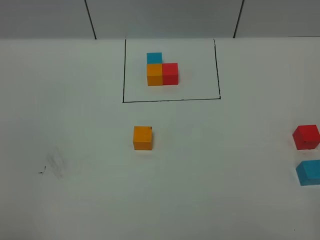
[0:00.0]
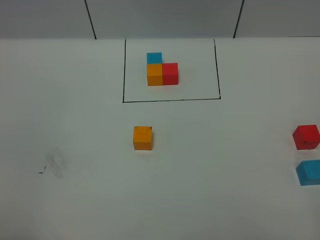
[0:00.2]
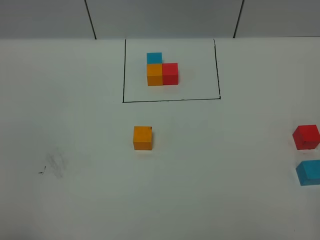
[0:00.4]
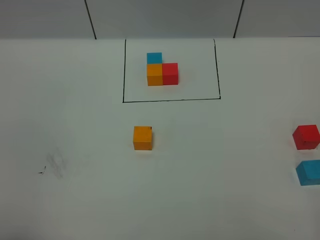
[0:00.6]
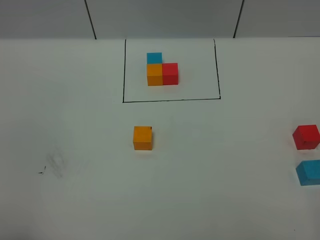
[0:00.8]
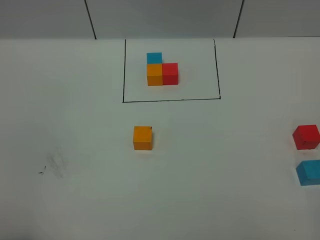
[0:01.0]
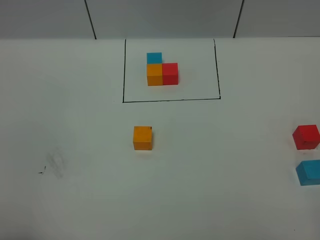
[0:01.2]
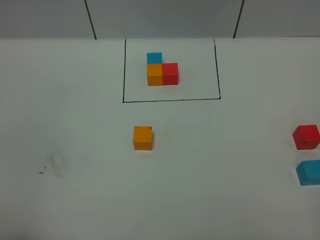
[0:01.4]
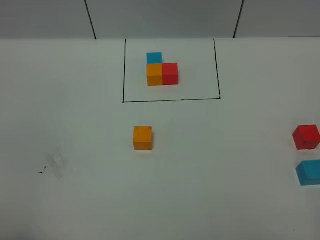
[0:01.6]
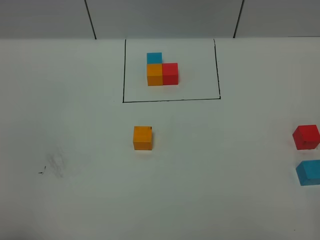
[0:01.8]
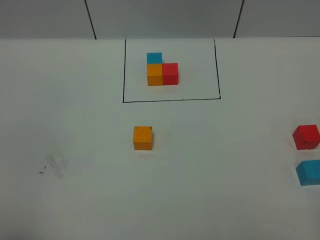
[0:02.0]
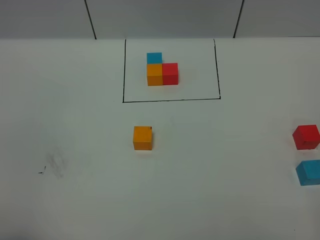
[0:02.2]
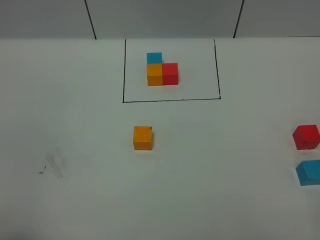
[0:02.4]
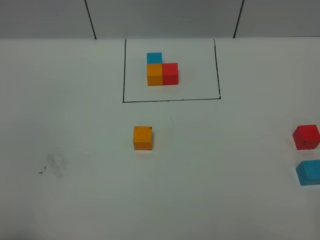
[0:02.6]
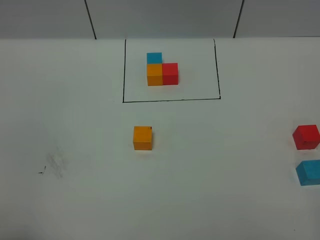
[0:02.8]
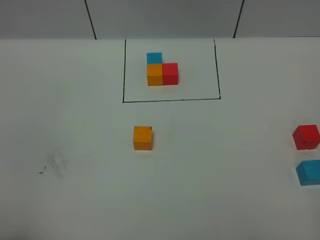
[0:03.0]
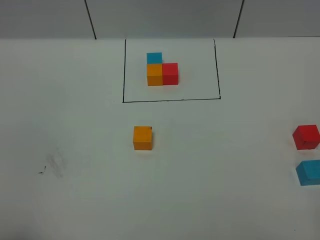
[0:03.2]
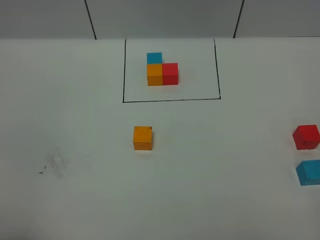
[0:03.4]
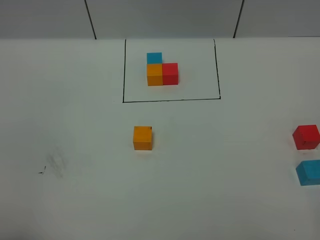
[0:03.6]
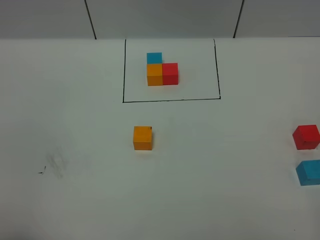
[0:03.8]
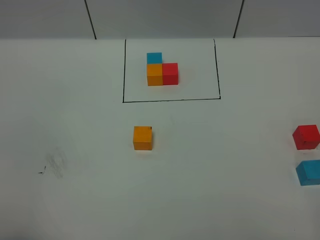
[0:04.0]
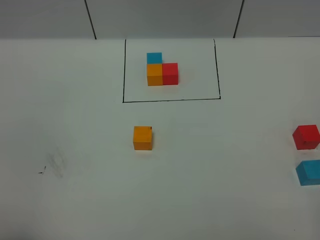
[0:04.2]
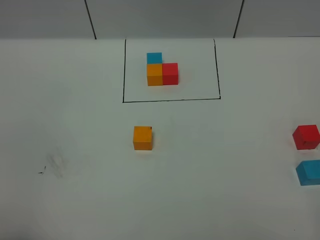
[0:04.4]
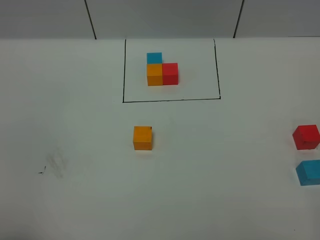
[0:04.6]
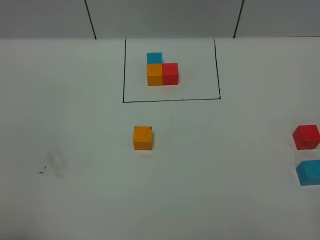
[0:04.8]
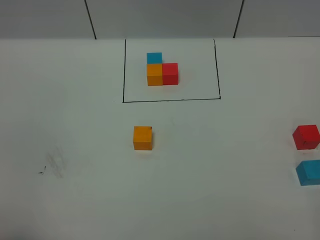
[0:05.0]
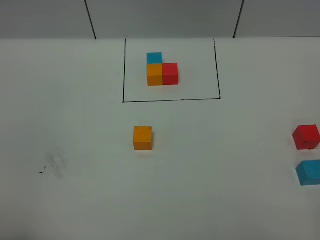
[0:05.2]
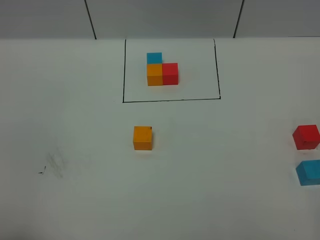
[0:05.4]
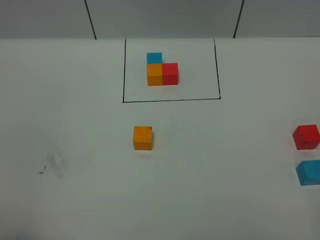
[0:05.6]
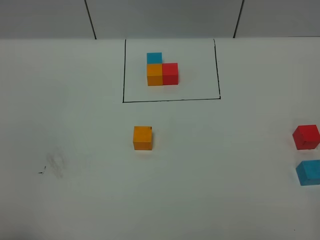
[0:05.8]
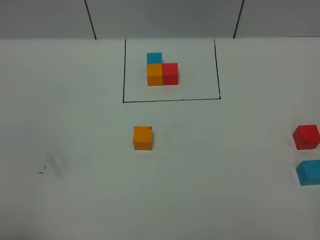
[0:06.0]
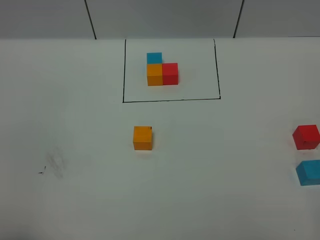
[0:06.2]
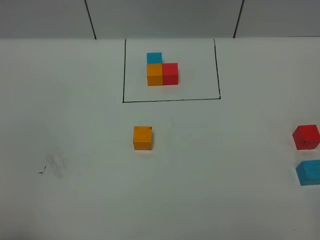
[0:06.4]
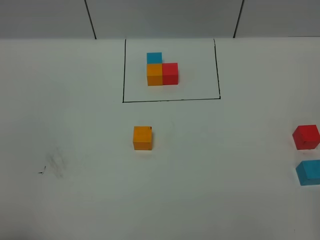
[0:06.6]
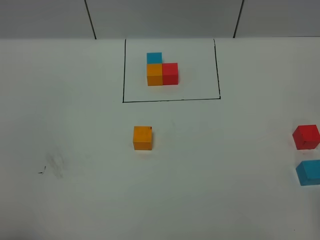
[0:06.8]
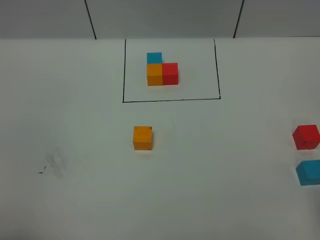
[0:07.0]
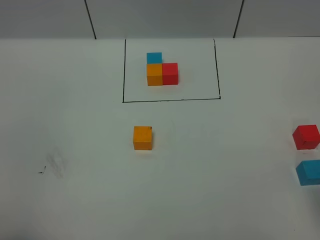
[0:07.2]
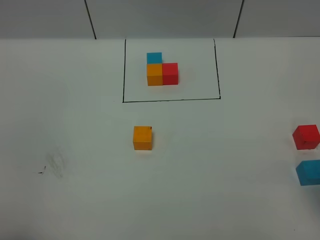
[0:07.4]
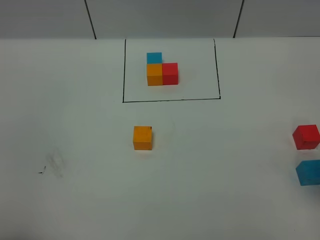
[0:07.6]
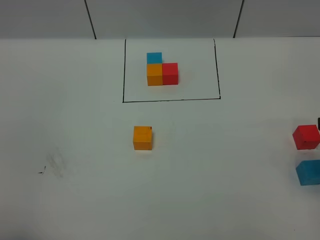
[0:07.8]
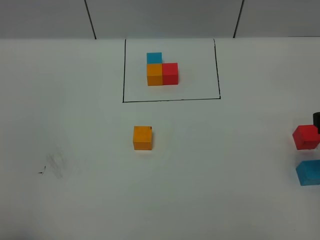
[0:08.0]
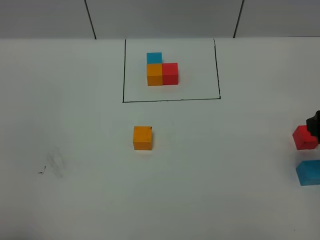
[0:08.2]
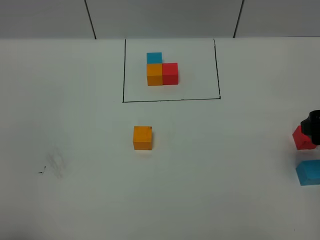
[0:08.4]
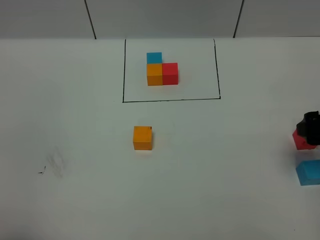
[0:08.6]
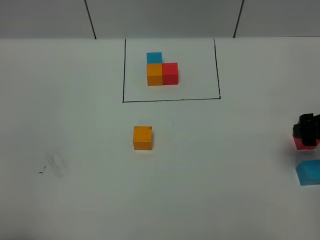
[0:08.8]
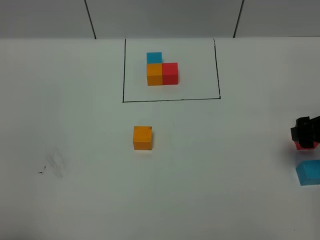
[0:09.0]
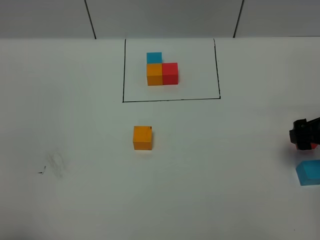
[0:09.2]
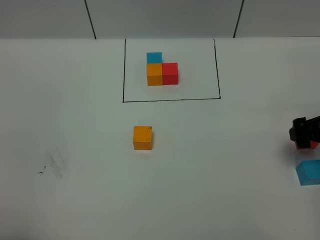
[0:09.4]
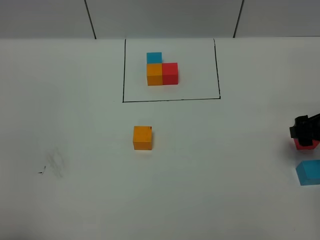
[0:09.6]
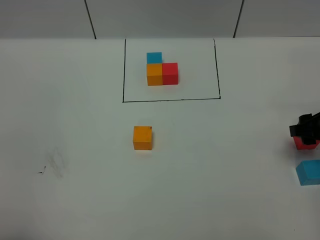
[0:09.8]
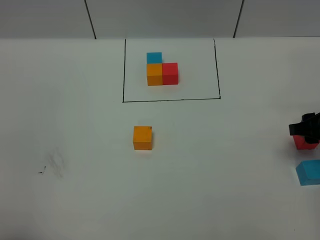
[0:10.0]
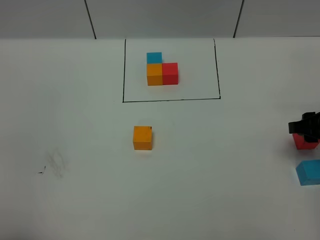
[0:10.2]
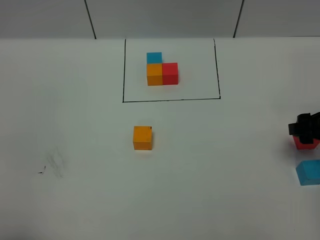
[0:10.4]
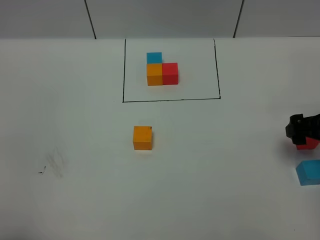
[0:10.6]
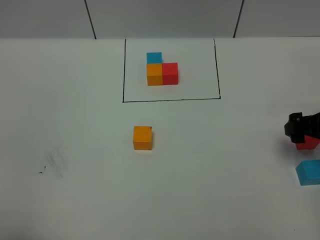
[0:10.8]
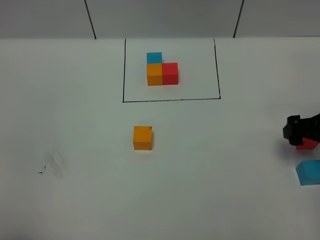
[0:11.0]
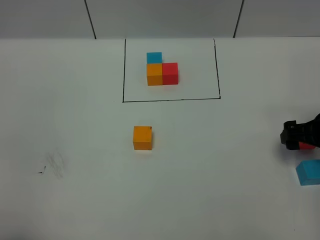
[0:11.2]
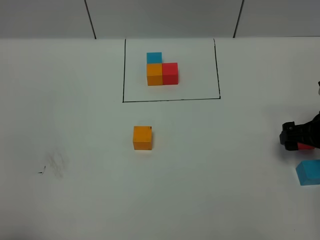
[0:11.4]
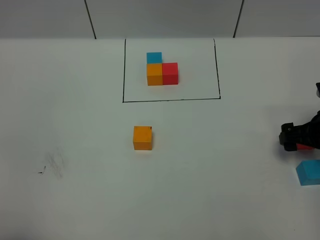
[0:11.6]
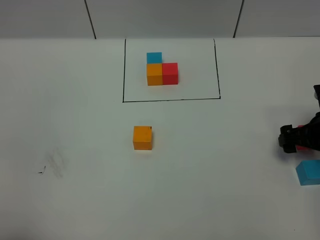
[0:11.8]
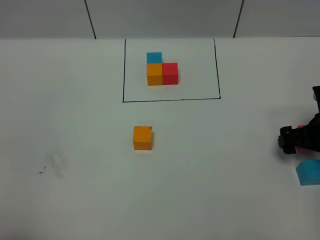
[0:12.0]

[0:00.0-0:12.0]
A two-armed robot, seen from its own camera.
Task of the whole recording: According to the building block template in front, assemble the scattered blocks together.
0:01.6 to 0:06.0: Neither gripper changes place.
0:07.6 to 0:09.0: The right gripper travels downward and forward by approximately 15 cm.
0:09.0 to 0:10.4: Neither gripper changes place.
0:10.4 to 0:12.0: The right gripper heads downward, covering some 5 cm.

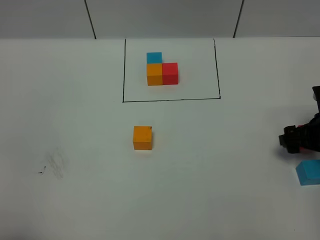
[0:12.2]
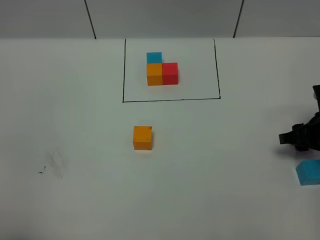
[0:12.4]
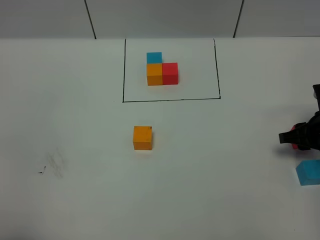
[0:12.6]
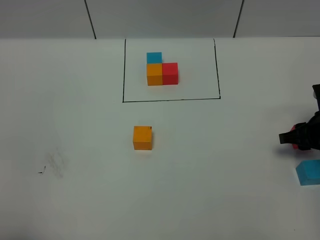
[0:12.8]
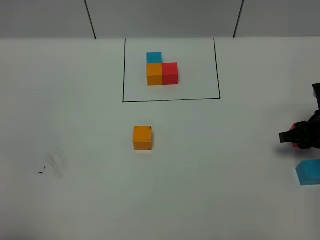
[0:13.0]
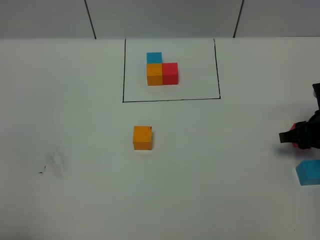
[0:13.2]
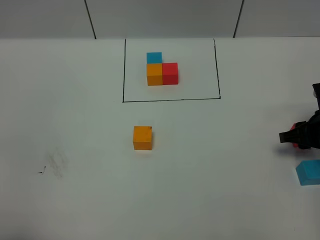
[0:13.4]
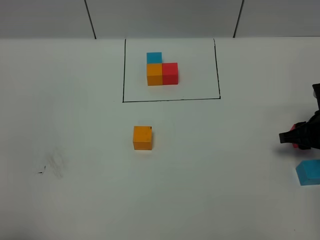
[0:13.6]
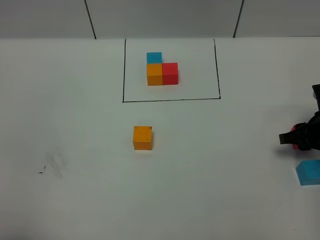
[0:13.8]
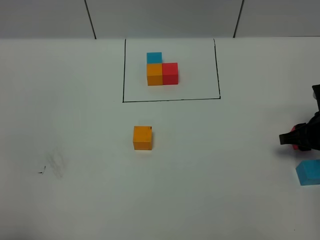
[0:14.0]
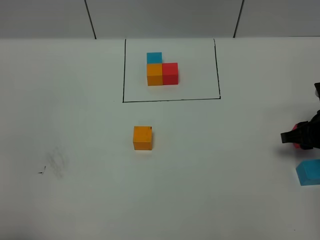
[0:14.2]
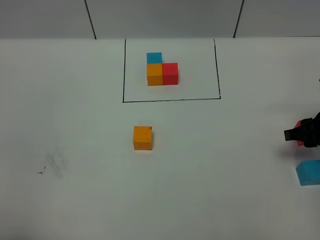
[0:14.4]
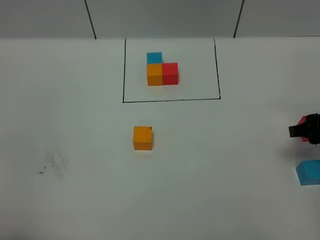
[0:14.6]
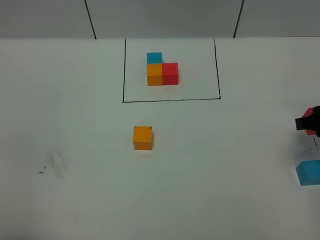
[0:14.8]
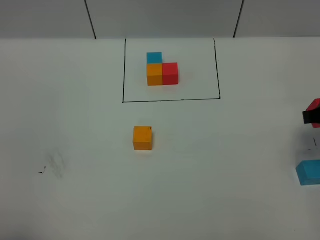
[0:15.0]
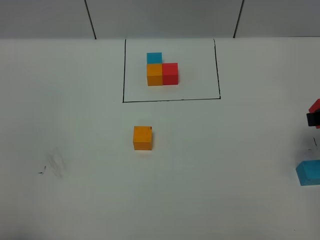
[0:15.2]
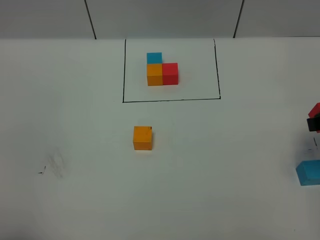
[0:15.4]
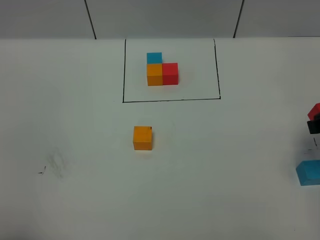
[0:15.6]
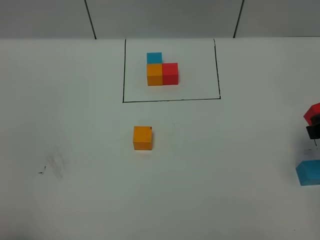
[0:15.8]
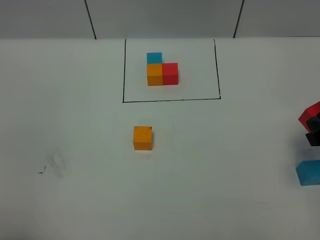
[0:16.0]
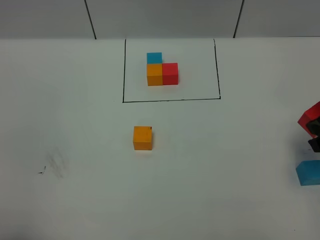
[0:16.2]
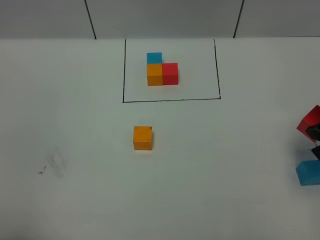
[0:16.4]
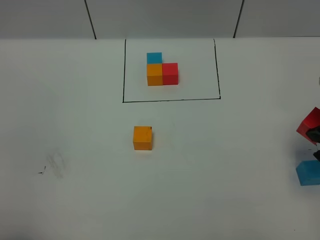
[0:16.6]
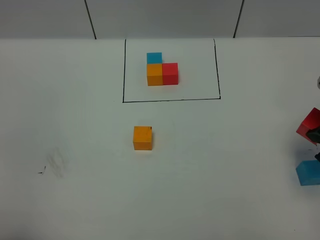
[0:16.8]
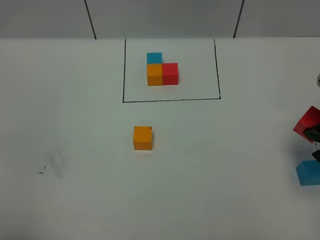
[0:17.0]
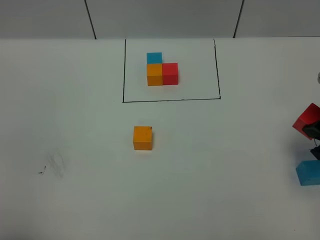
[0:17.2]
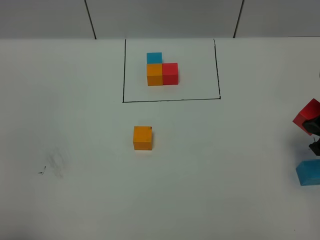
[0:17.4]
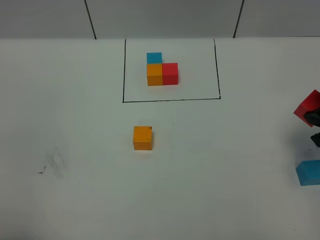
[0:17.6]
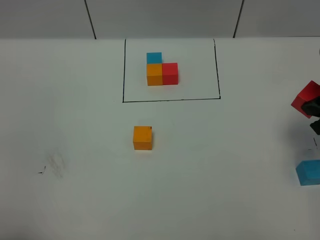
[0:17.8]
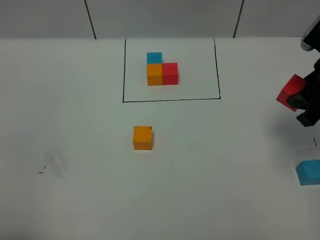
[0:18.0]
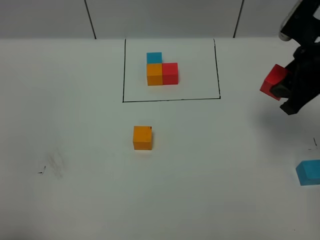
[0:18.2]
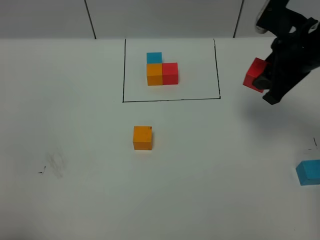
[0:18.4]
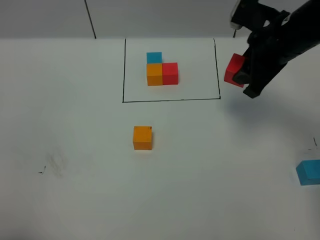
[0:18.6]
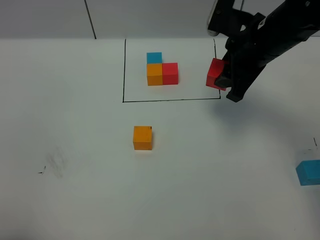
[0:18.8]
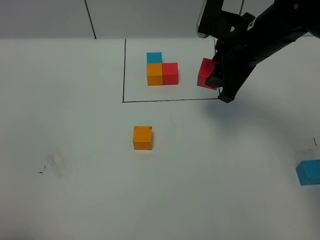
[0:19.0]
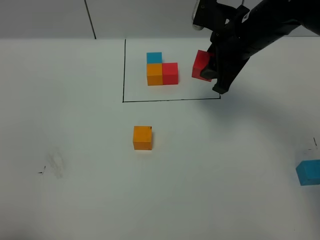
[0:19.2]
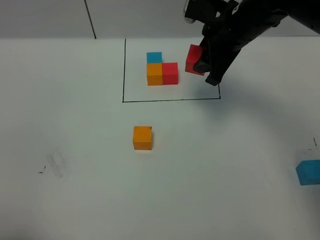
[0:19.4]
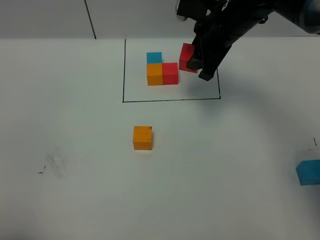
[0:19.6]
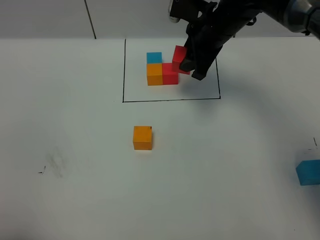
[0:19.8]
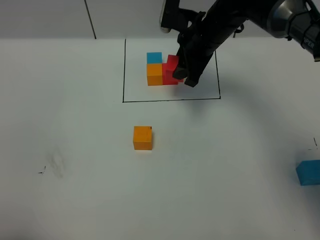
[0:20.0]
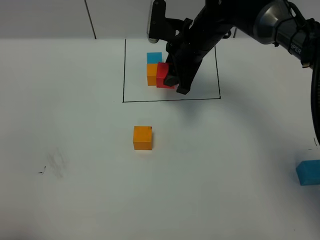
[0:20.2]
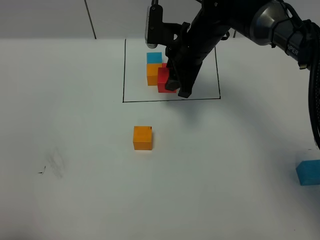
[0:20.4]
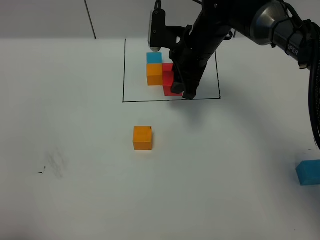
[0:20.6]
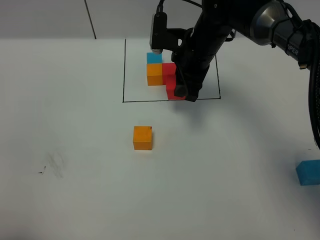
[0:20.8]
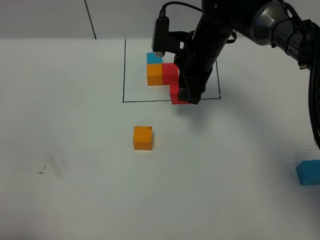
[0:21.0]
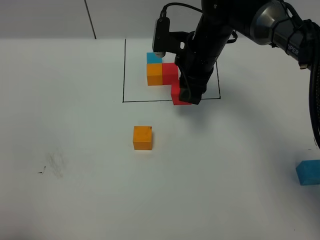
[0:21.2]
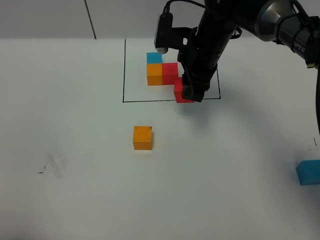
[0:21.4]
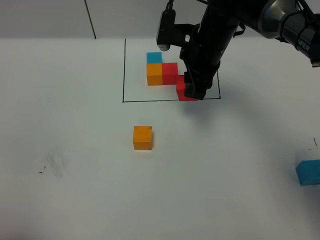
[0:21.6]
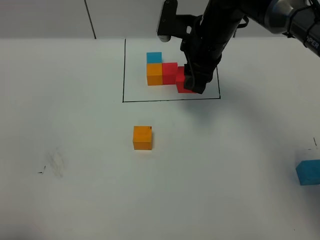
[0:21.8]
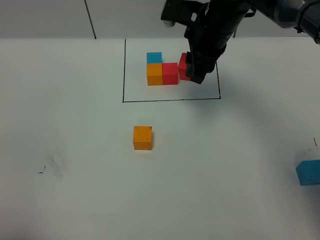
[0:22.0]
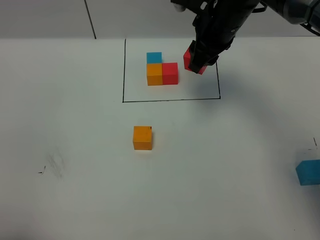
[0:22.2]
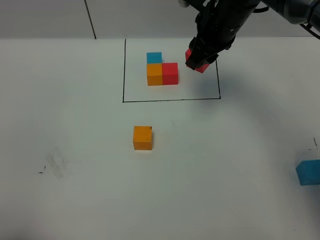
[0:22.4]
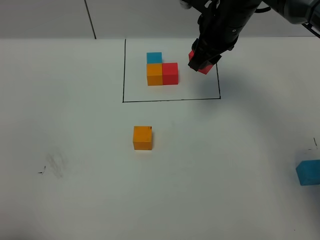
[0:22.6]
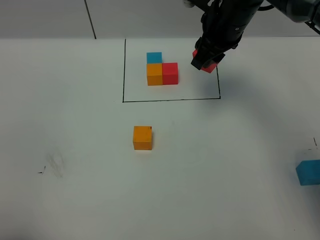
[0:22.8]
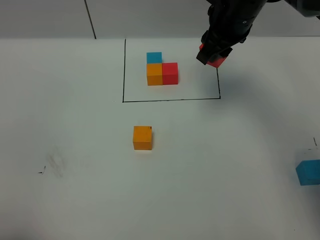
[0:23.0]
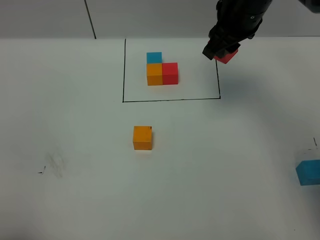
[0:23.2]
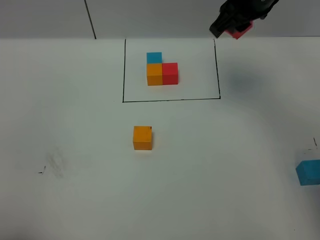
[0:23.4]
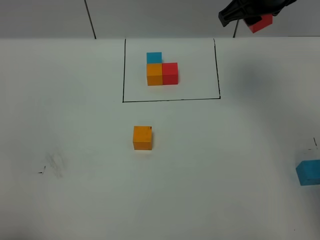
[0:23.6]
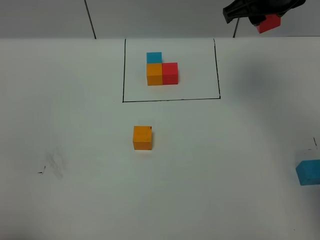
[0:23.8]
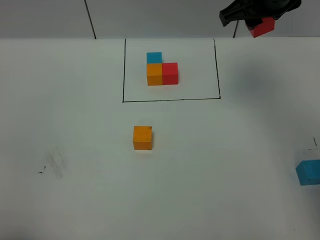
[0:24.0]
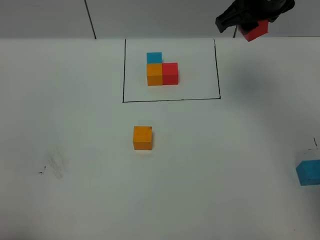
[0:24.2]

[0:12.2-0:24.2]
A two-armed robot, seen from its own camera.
Task of the whole recording: According to the building block template in front, assemble the scattered blocks together.
0:13.8 to 0:15.2: The right gripper moves upward, about 15 cm.
0:16.6 to 0:18.2: The right gripper is displaced forward and to the left by roughly 10 cm.
0:18.2 to 0:19.8: The right gripper moves to the left and forward, approximately 20 cm.
0:19.8 to 0:21.2: The grippers stay close to where they were, moving slightly.
0:21.2 to 0:22.6: The right gripper goes about 5 cm upward.
0:22.6 to 0:24.2: The right gripper travels upward by approximately 5 cm.
